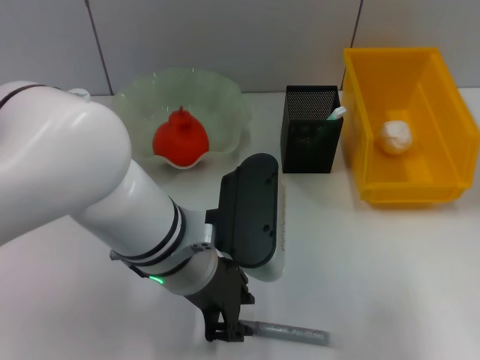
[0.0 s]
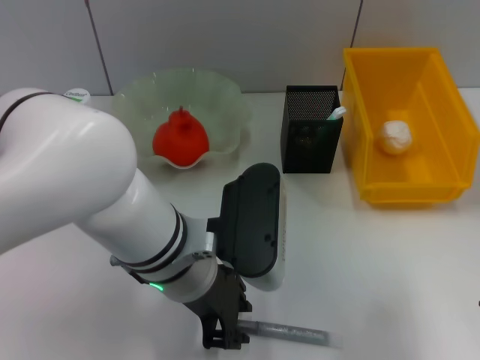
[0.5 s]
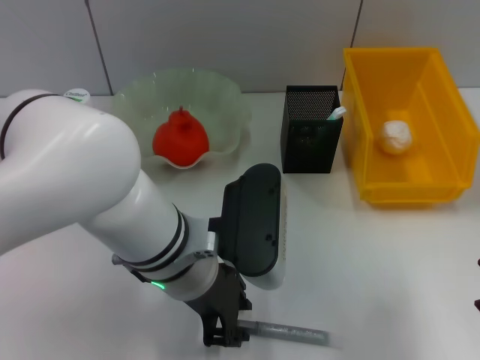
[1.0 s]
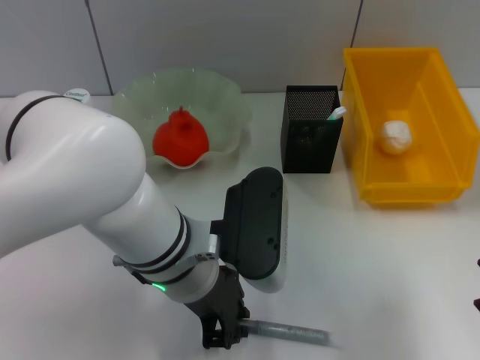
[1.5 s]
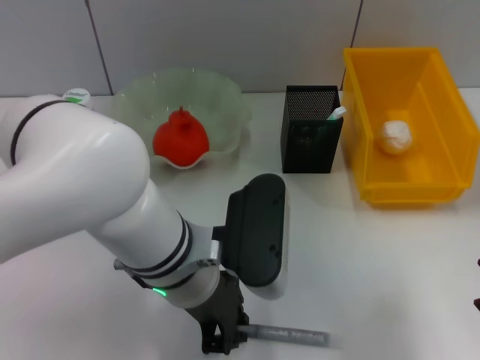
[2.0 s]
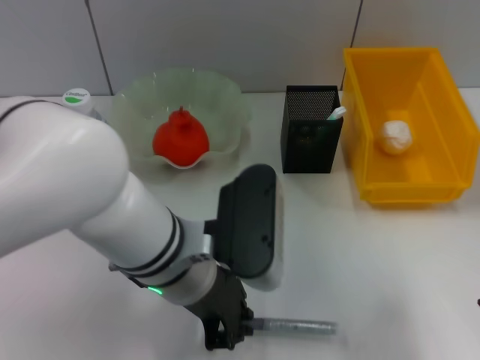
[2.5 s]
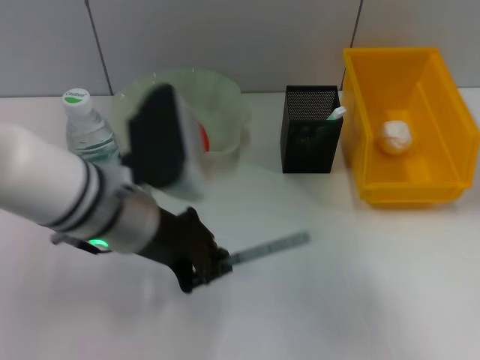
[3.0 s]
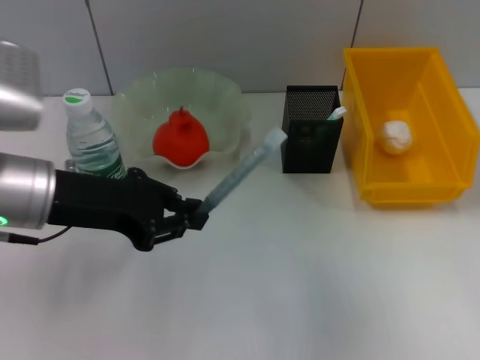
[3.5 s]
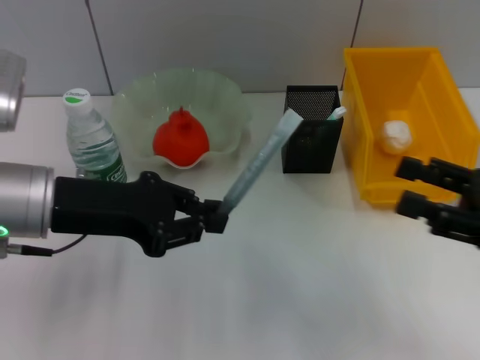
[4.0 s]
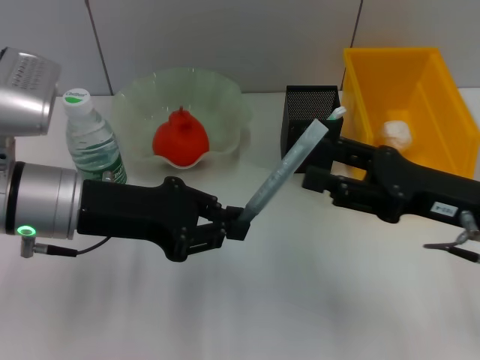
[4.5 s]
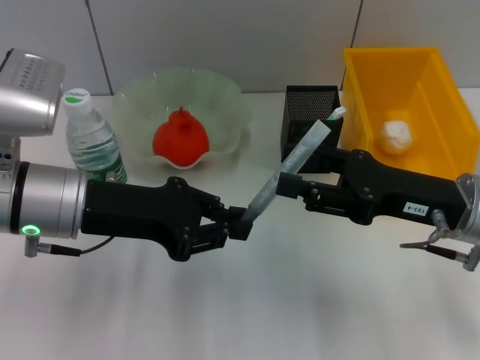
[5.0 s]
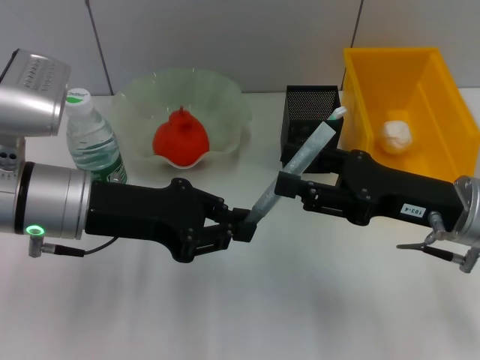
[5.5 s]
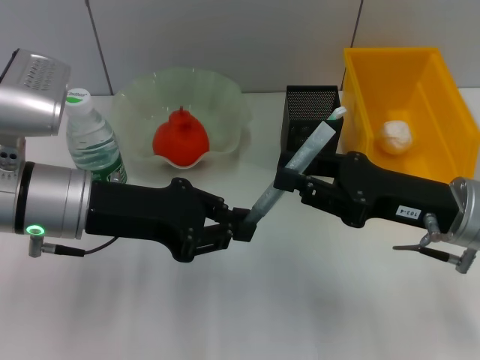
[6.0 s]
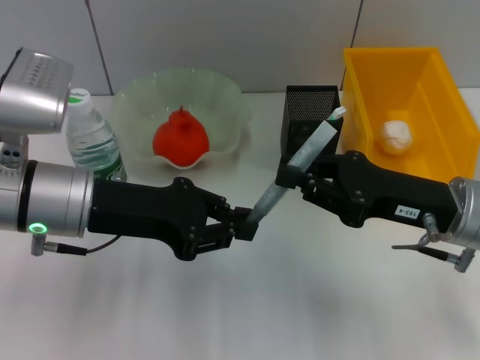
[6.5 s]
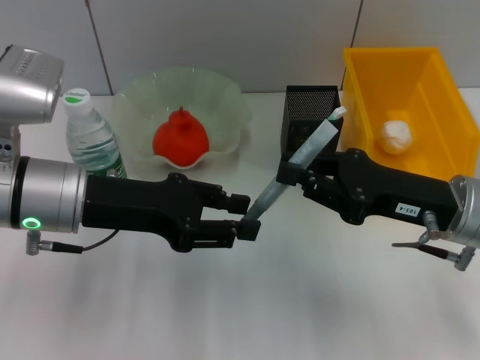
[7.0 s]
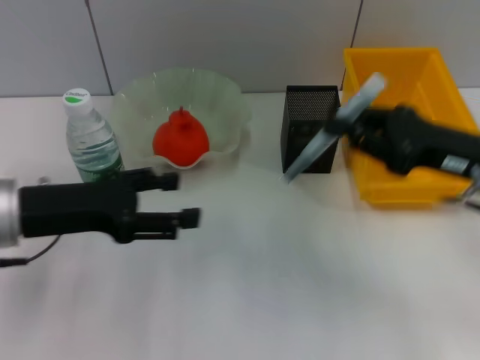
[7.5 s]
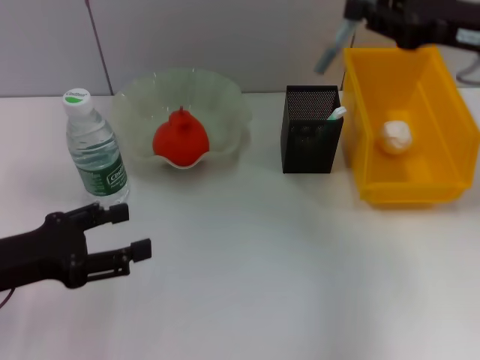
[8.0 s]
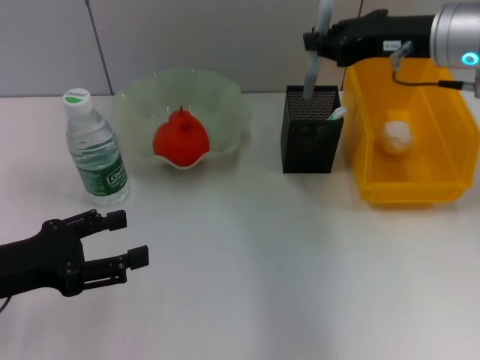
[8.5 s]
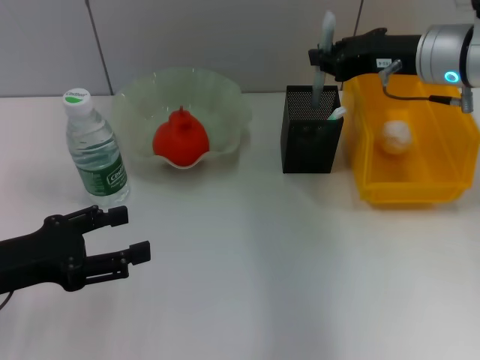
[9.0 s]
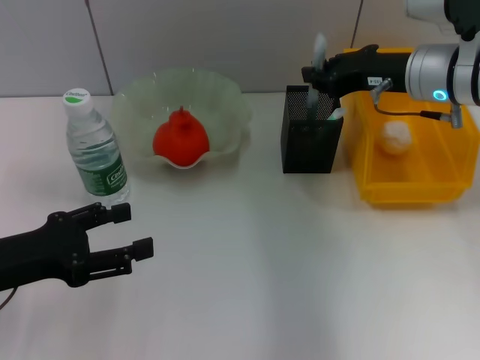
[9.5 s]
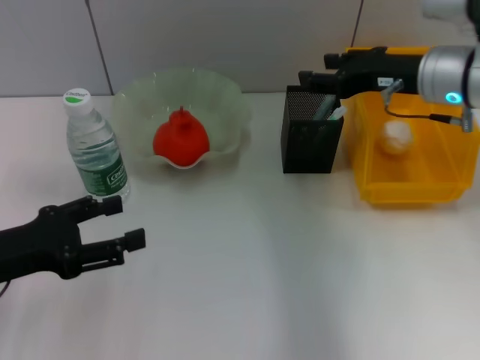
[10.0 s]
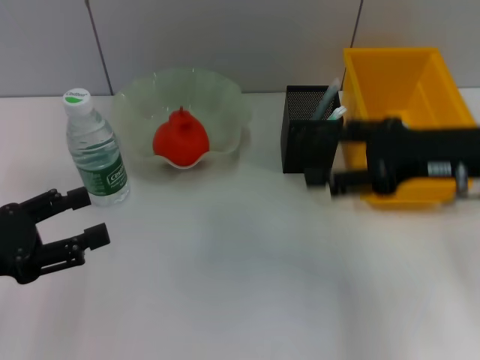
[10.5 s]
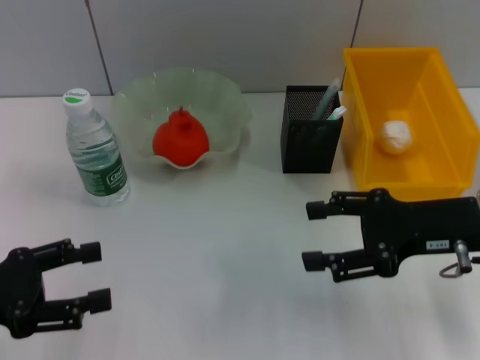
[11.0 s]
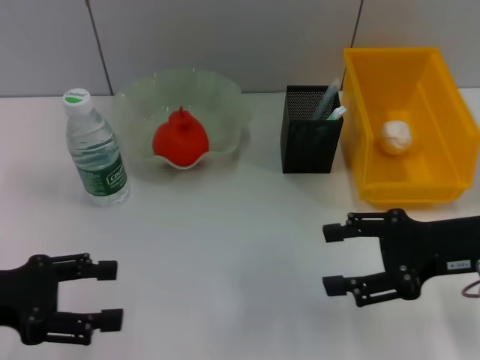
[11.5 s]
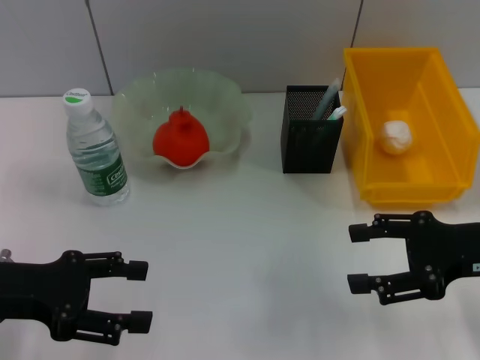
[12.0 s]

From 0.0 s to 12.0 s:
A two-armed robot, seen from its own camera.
Step, from 0.0 s to 2.0 s: Grab the gray glue with the left hand.
Step, from 2.5 s to 7.5 s: Pass the gray glue from the left hand to the right hand.
From 0.0 s to 2.0 s: The left gripper closes its fingers.
From 2.0 s to 4.0 s: The left gripper moves to the left, some 15 cm; the right gripper heads downward, covering approximately 10 cm.
From 4.0 s to 6.0 s: The right gripper travels to the left by about 10 cm, and closes up.
From 6.0 s to 8.0 s: The right gripper goes roughly 15 cm upward and forward; the left gripper heads to the left and backward, covering about 10 cm, and opens up.
From 8.0 s to 10.0 s: The right gripper is displaced downward by about 5 cm, and opens up.
From 10.0 s to 12.0 s: The right gripper goes about 15 cm backward and to the right, and opens up.

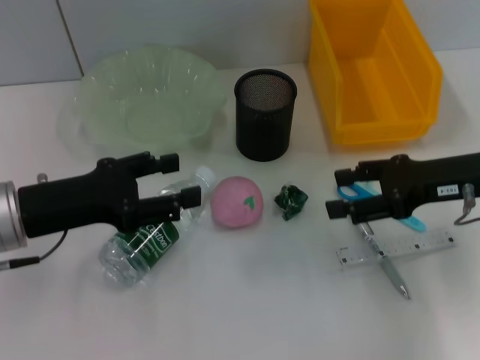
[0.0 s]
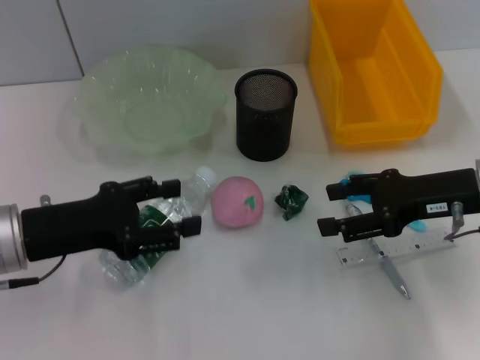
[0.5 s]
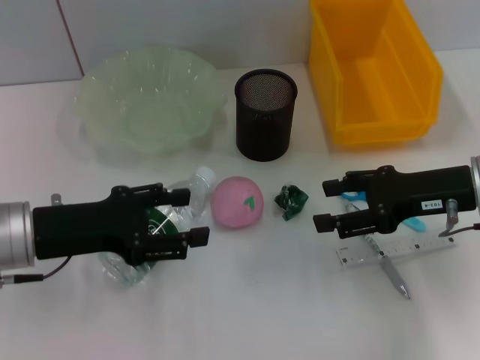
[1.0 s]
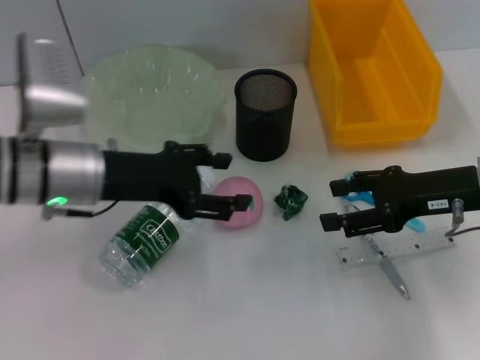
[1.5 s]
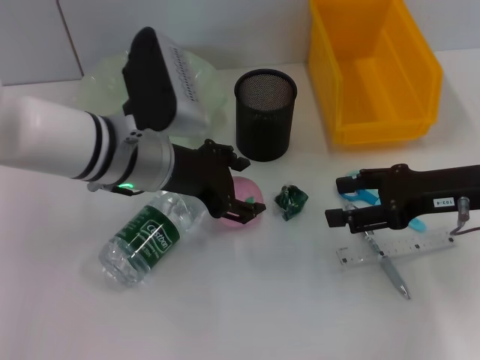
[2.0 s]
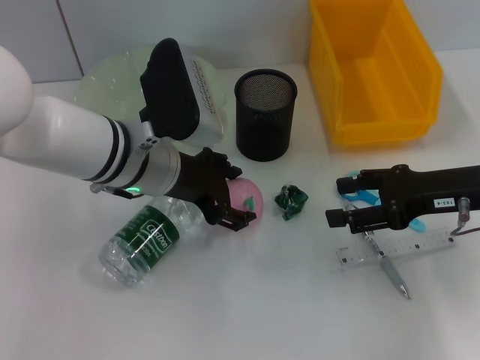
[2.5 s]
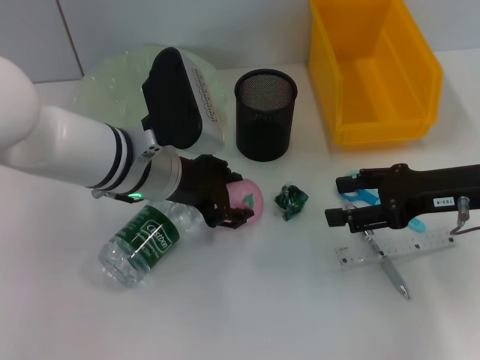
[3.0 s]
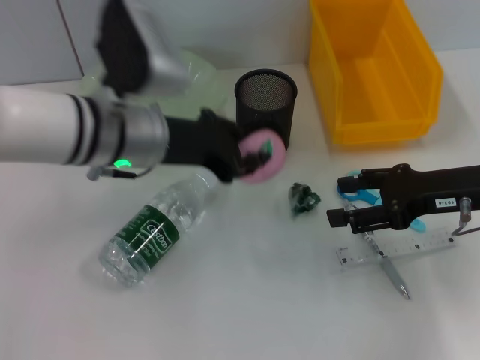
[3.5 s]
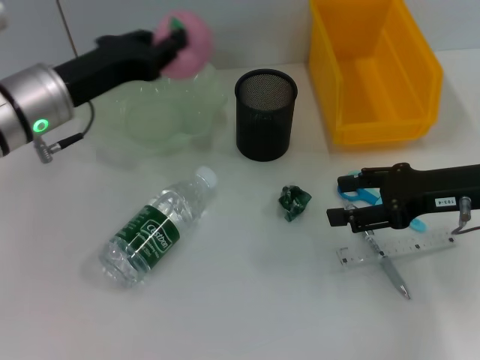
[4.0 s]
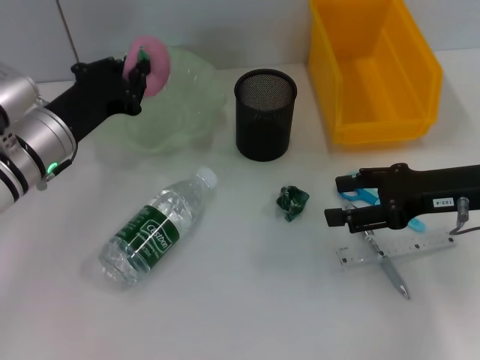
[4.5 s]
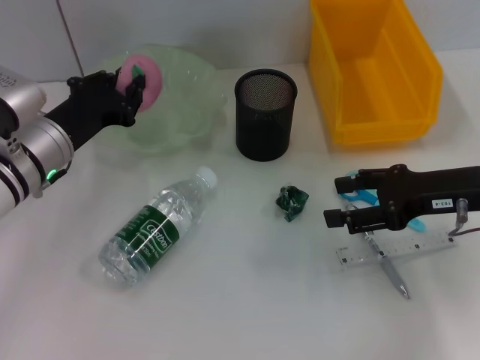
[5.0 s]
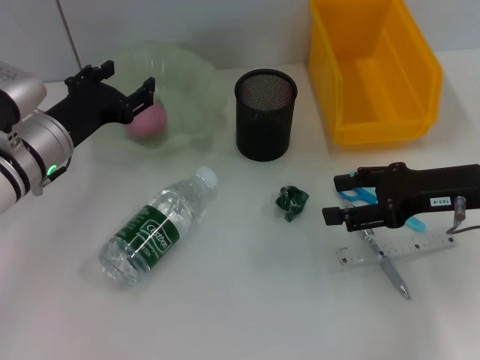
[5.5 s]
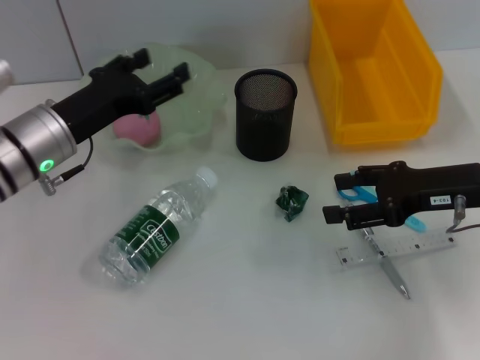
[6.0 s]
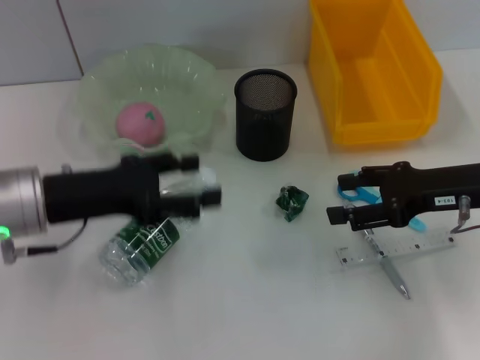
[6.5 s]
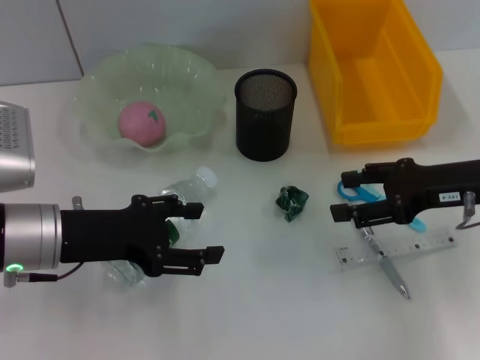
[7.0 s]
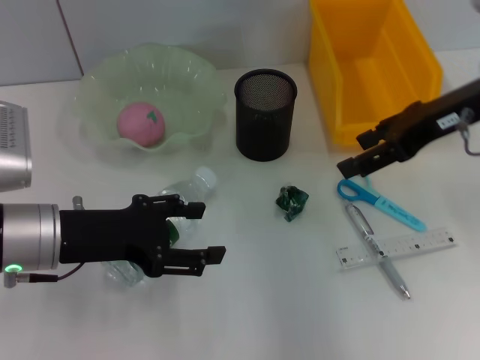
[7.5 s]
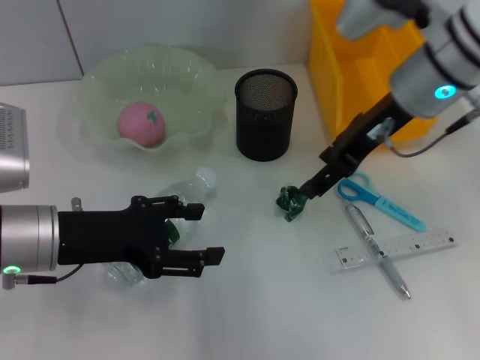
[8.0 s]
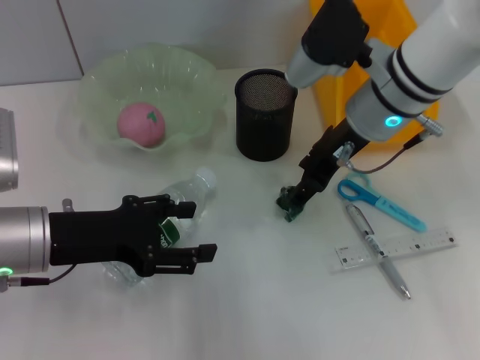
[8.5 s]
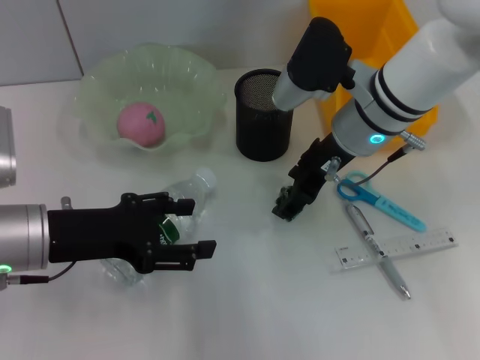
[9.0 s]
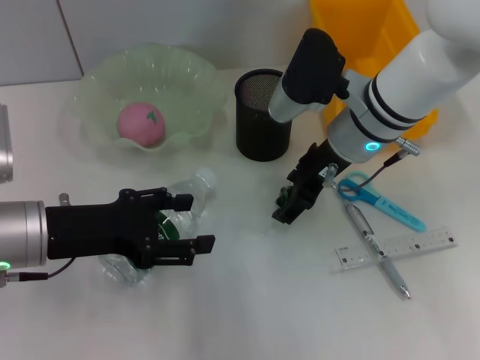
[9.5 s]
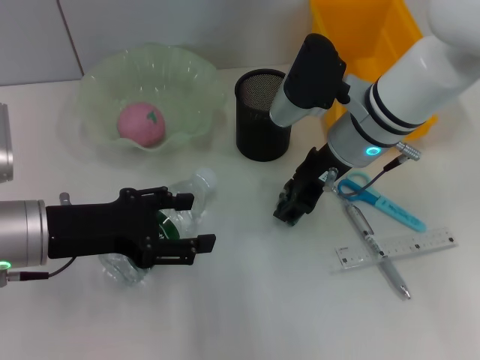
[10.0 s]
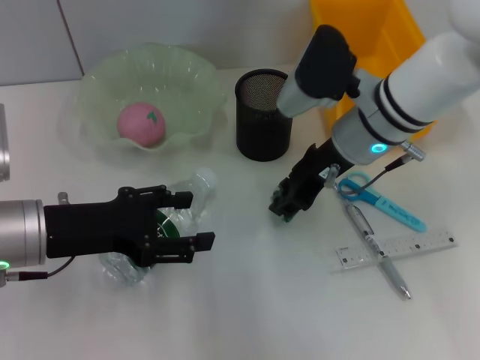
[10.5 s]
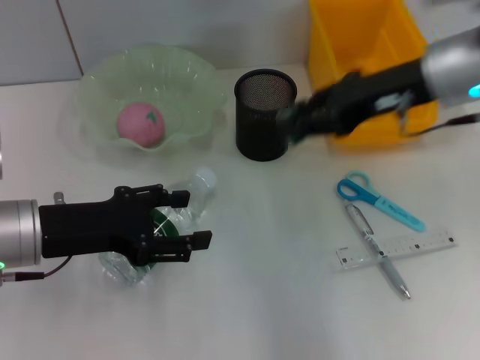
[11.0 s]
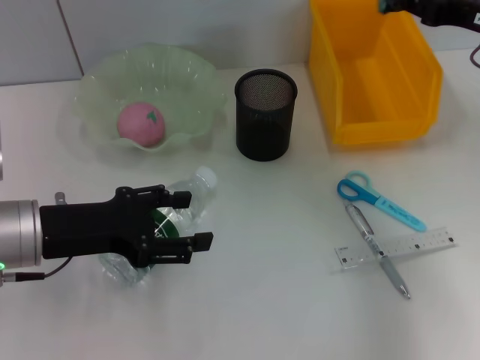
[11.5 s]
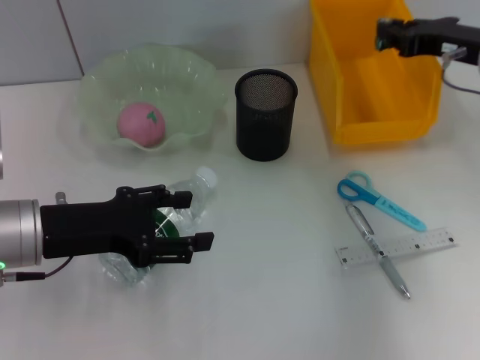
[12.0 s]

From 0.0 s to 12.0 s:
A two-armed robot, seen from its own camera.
Step, from 0.0 s to 3.0 s: Grab the peach with the left hand.
Step, from 3.5 s to 5.5 s: Place the peach into the fruit bowl with the left hand.
Step, from 6.5 s to 10.0 s: Grab the plastic with the right hand.
From 0.0 s to 2.0 s: The left gripper shifts roughly 15 cm to the right and forward.
From 2.0 s to 4.0 s: The left gripper shifts about 10 cm to the left, and closes its fingers.
From 4.0 s to 6.0 s: The left gripper opens up.
From 6.0 s to 8.0 s: The left gripper goes roughly 5 cm backward, while the right gripper heads to the left, upward and forward, covering roughly 15 cm.
From 8.0 s to 10.0 s: The right gripper goes about 5 cm downward.
From 10.0 s to 12.0 s: The right gripper moves to the right, about 15 cm, and closes its fingers.

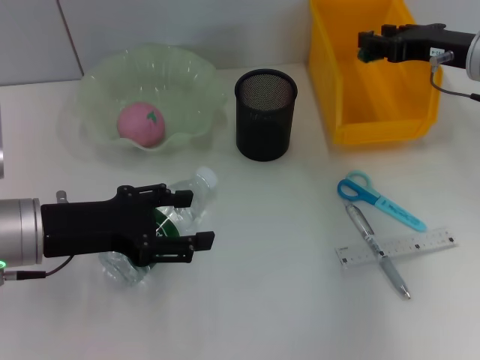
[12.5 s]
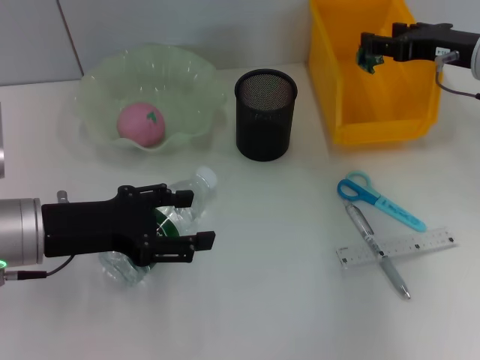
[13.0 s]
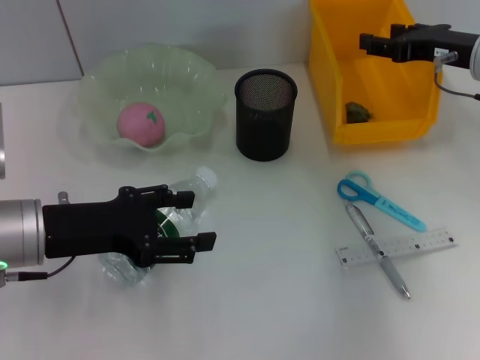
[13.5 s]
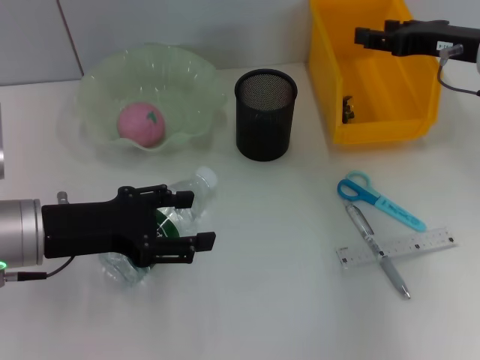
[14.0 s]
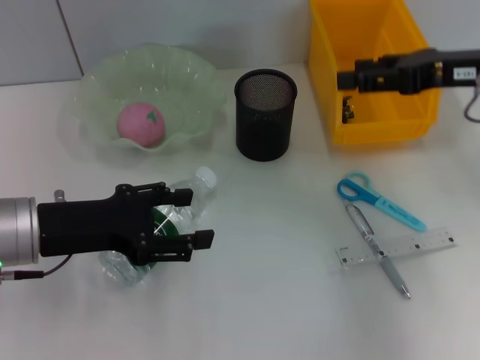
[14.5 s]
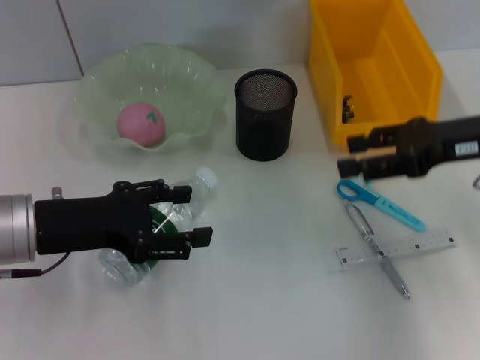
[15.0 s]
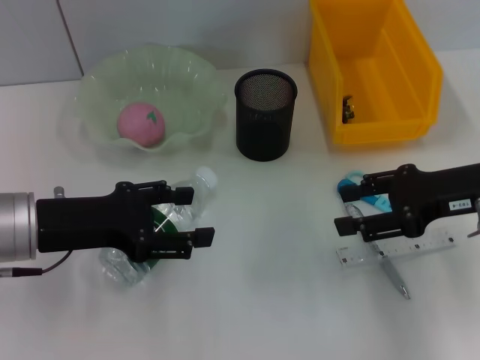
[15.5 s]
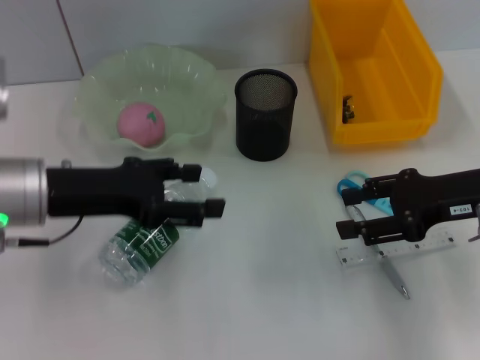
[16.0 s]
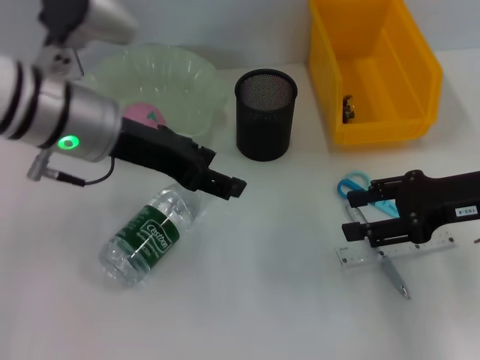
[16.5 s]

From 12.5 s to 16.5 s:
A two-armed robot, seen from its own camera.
From 12.5 s to 14.5 s: The right gripper heads backward, covering about 5 cm, and opens its fingers.
From 14.5 s to 16.5 s: The left gripper heads to the right, upward and forward, covering approximately 15 cm. Meanwhile the right gripper moves downward and backward, roughly 10 cm.
